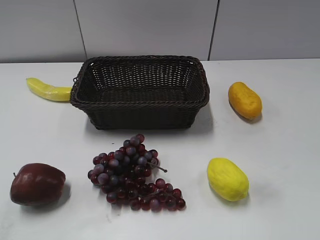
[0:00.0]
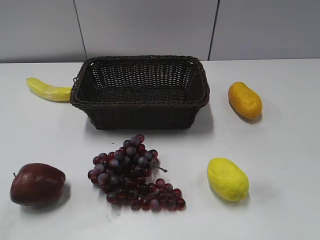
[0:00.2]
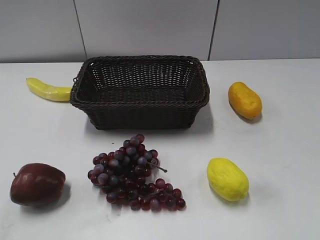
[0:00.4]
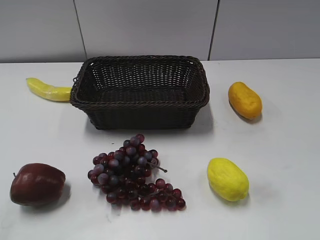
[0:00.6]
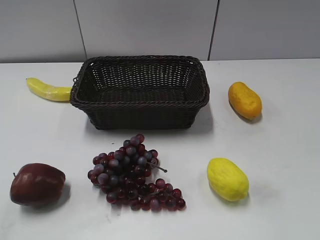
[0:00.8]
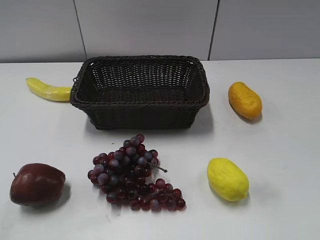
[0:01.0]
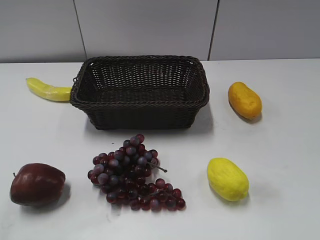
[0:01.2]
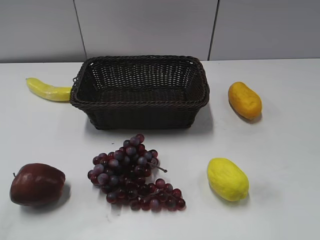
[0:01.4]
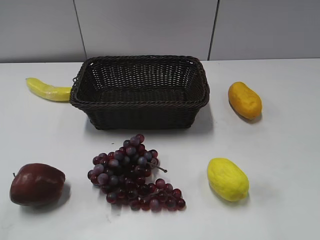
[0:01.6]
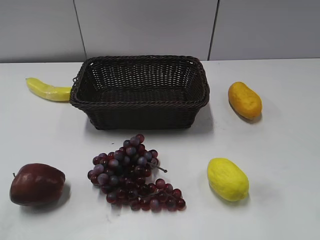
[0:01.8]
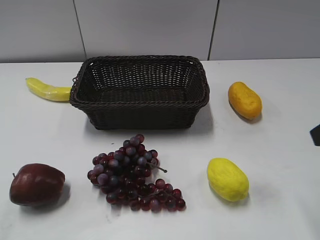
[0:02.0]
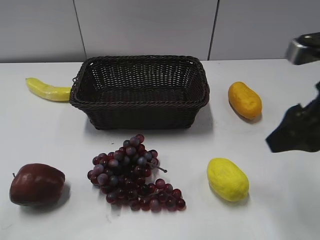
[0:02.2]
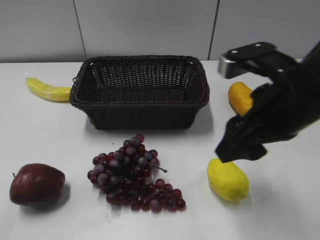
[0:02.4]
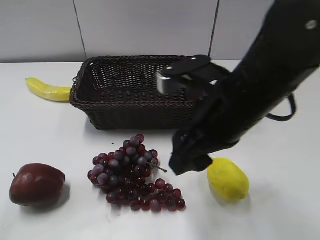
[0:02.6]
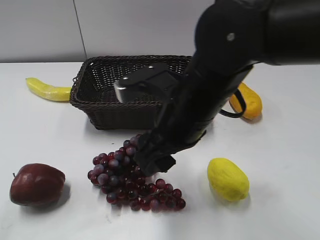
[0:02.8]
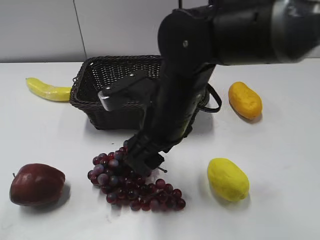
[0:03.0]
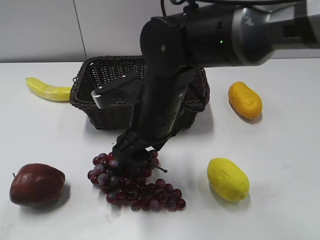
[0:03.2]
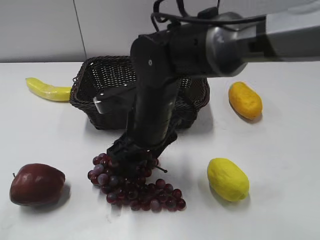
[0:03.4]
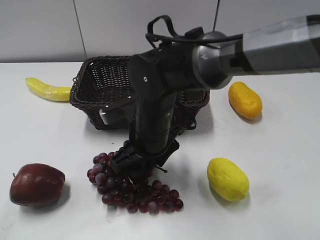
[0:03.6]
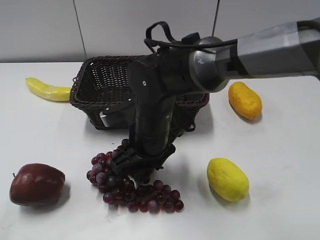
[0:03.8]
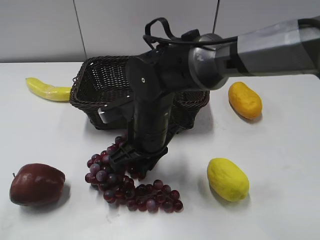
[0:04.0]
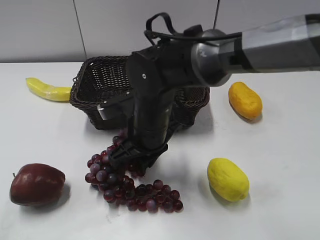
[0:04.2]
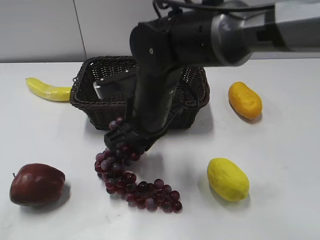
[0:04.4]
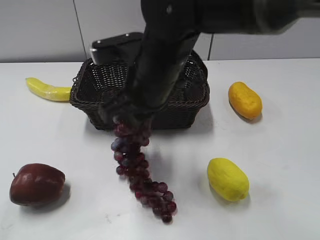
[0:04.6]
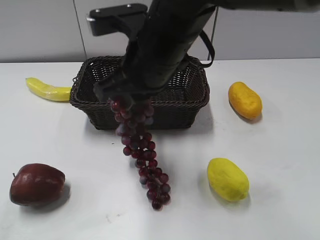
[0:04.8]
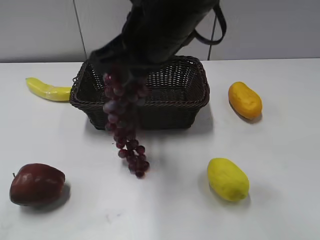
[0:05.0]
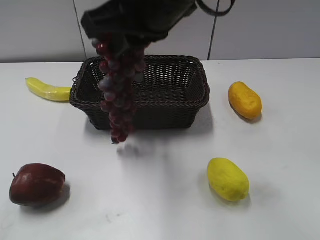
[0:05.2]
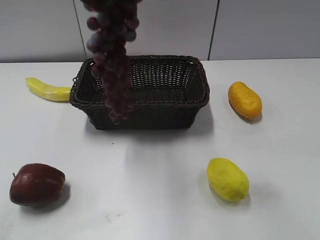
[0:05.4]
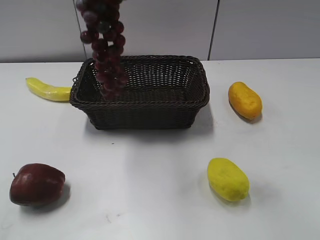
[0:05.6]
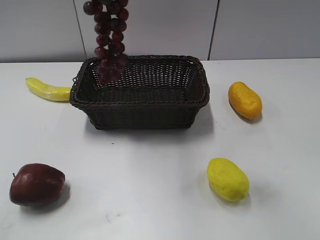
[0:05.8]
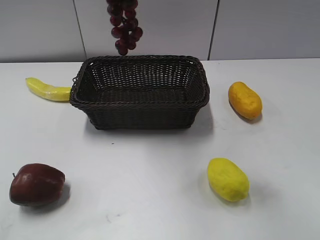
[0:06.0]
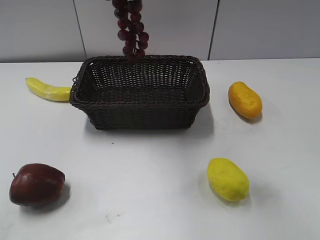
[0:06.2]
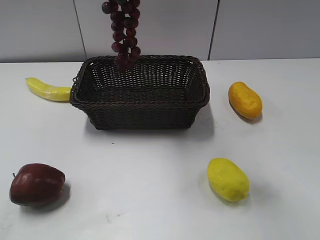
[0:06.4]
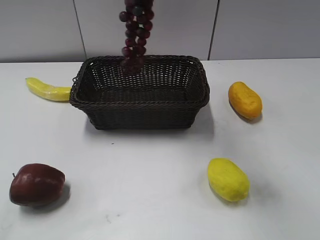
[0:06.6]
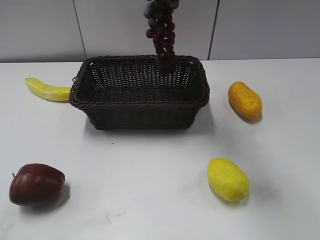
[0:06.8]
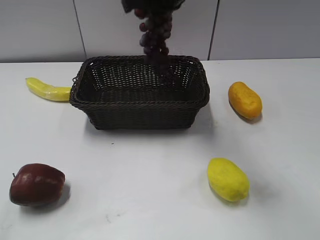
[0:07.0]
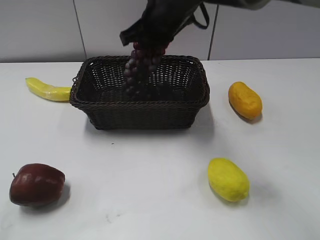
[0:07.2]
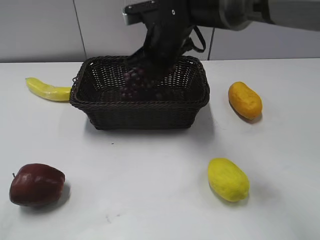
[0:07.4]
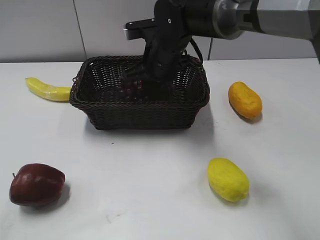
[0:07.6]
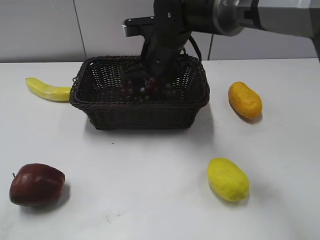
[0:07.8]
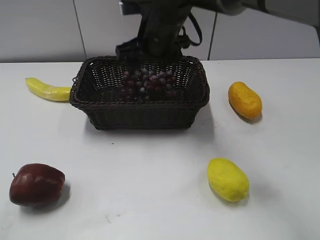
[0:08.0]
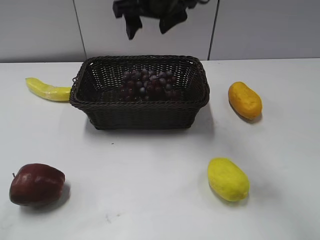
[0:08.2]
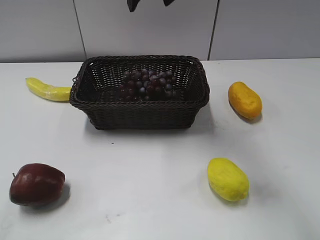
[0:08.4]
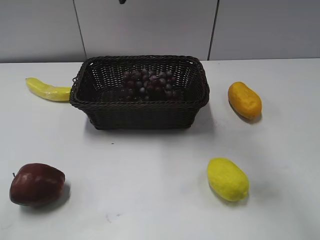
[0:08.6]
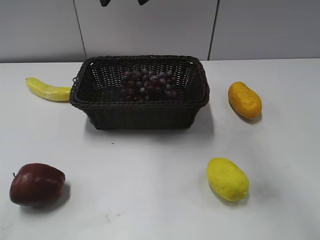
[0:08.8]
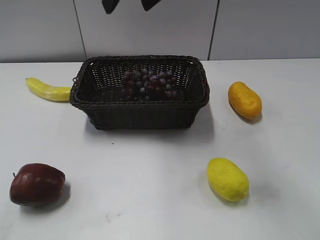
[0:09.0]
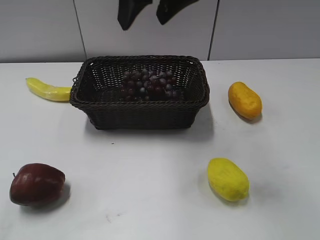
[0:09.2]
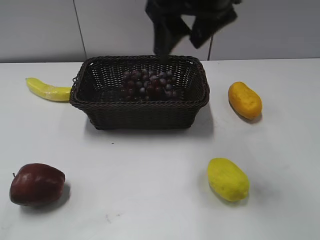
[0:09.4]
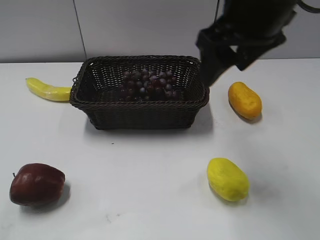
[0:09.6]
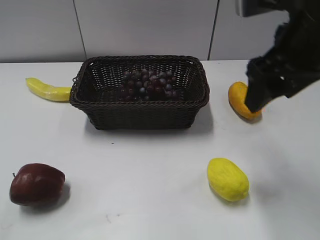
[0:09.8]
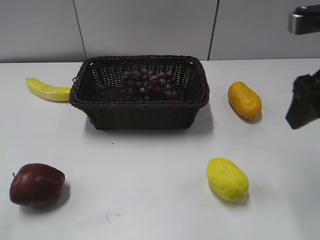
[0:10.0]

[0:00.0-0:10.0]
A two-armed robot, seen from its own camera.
Step, 0:02.0 to 0:04.6: Grasp the grape with right gripper.
Step, 0:04.8 to 0:08.0: Place the grape in the basket with right gripper.
0:01.4 to 0:02.8: The right gripper shifts roughly 30 cm to the left and forward.
0:02.8 to 0:04.2: The right gripper is displaced downward, to the left and forward by about 10 cm, and closes up.
0:04.2 to 0:05.8: The right gripper travels upward by approximately 30 cm.
0:05.8 to 0:07.2: The right gripper shifts approximately 25 cm downward and forward.
0:07.2 to 0:08.6: The right gripper is displaced upward by approximately 10 cm, and opens.
0:08.6 to 0:10.0: The right gripper heads to the right and backward, covering roughly 25 cm.
